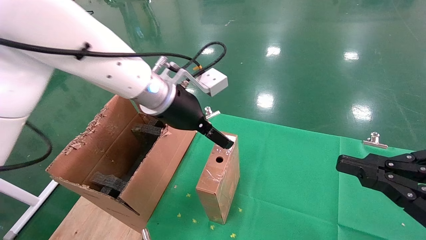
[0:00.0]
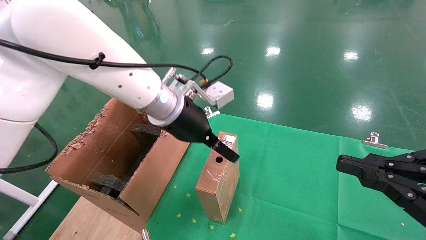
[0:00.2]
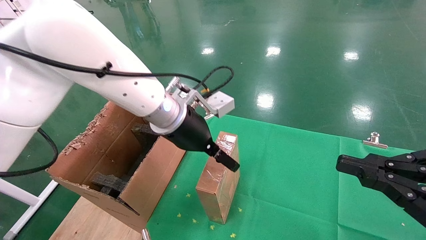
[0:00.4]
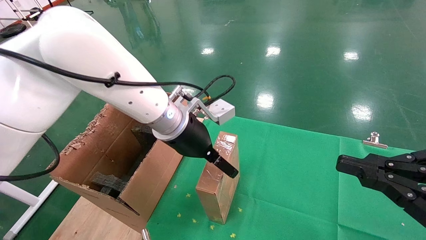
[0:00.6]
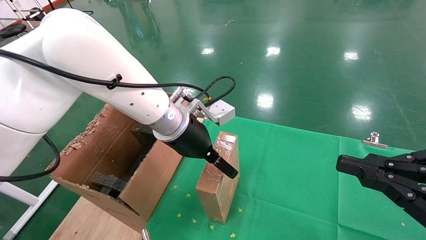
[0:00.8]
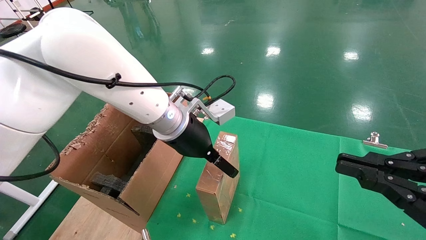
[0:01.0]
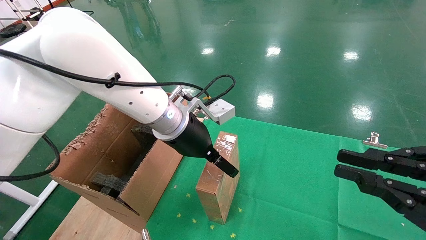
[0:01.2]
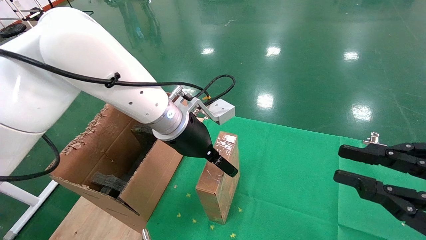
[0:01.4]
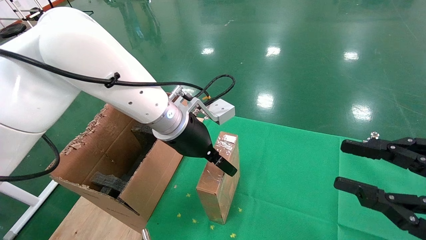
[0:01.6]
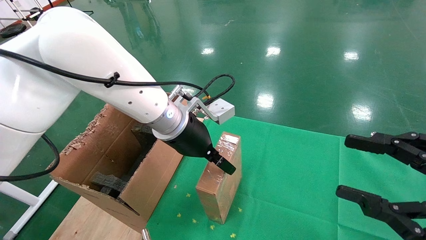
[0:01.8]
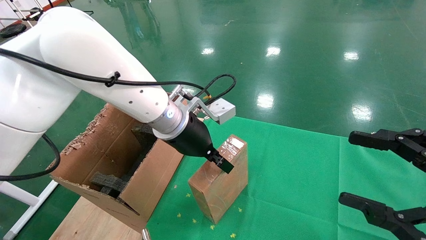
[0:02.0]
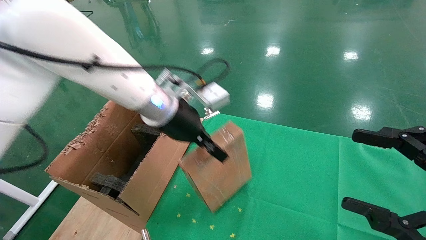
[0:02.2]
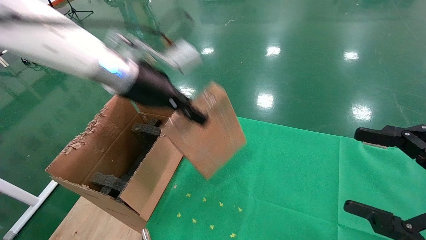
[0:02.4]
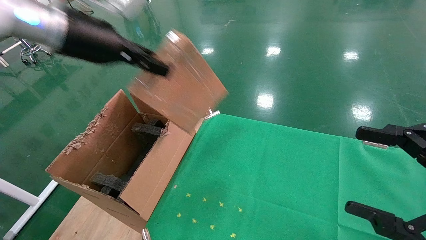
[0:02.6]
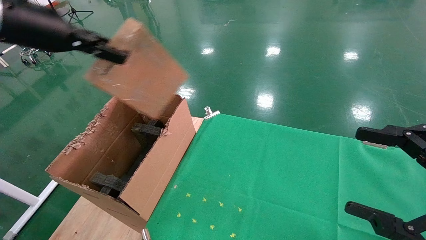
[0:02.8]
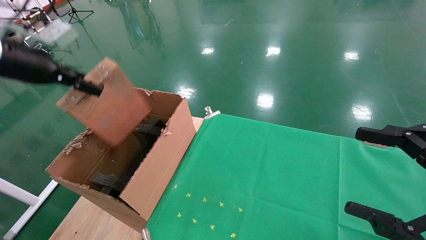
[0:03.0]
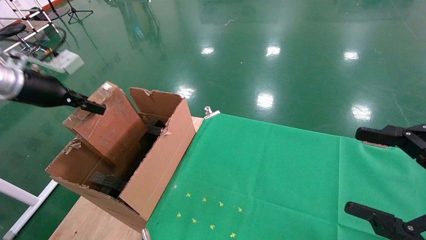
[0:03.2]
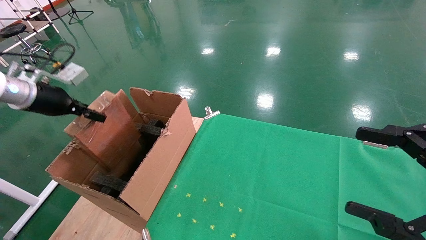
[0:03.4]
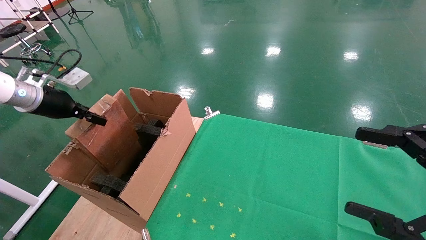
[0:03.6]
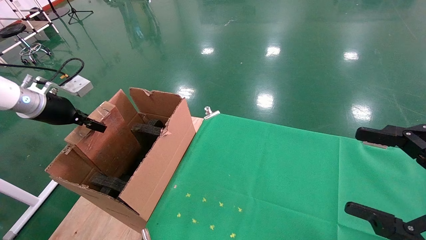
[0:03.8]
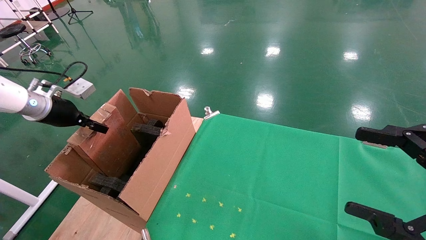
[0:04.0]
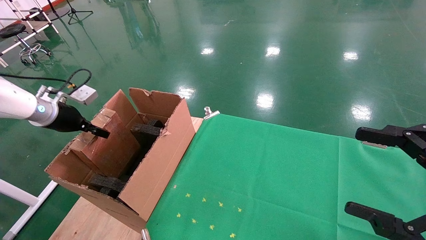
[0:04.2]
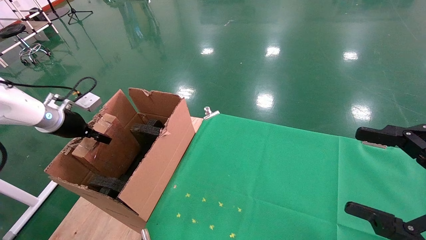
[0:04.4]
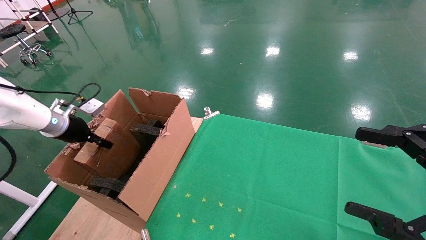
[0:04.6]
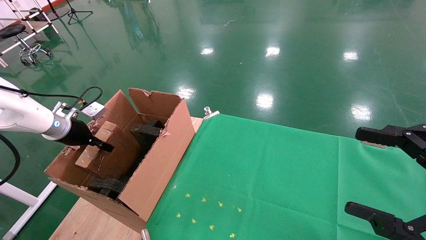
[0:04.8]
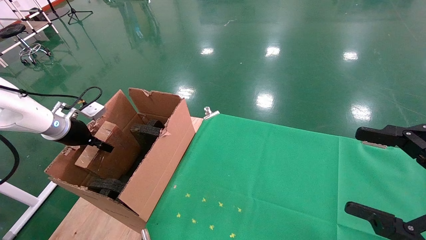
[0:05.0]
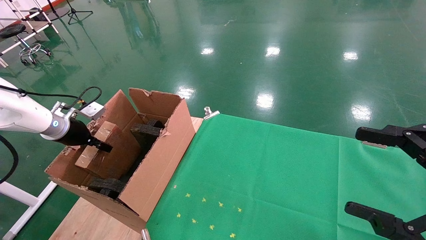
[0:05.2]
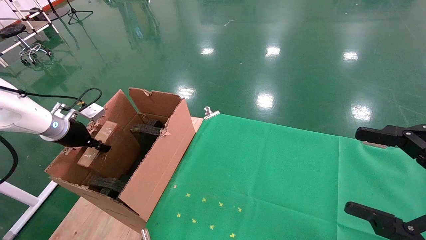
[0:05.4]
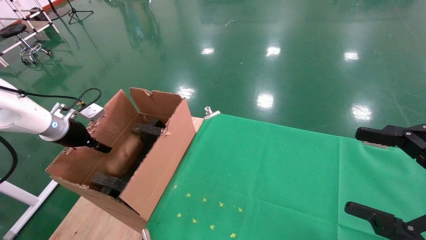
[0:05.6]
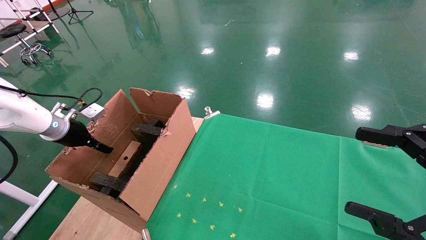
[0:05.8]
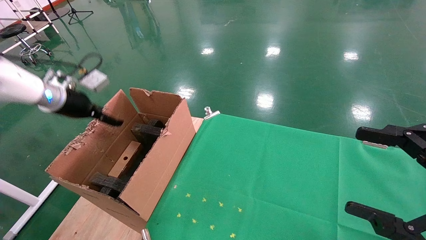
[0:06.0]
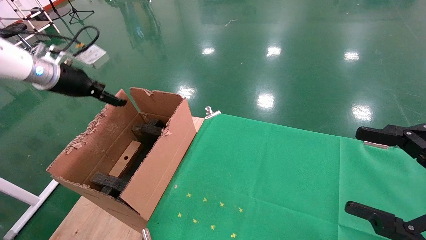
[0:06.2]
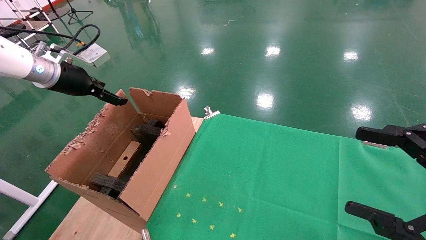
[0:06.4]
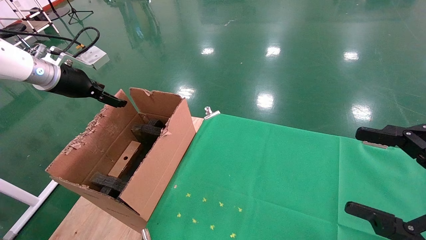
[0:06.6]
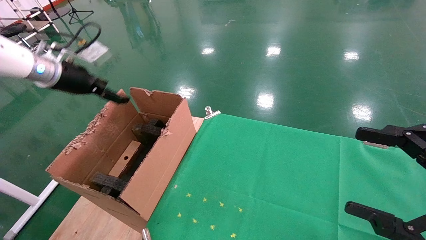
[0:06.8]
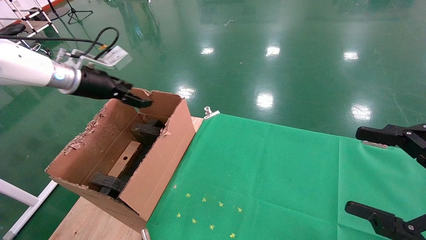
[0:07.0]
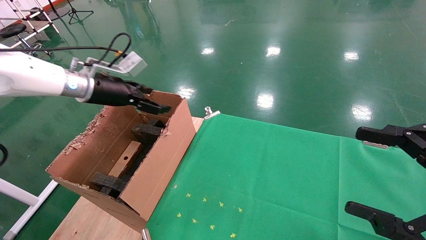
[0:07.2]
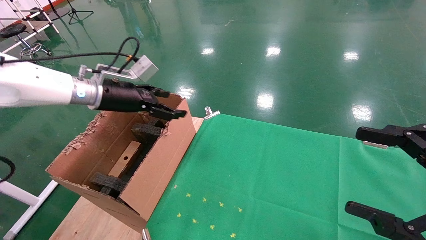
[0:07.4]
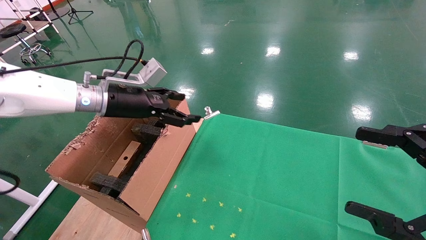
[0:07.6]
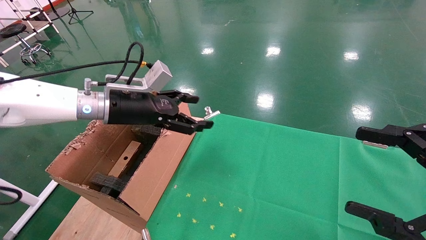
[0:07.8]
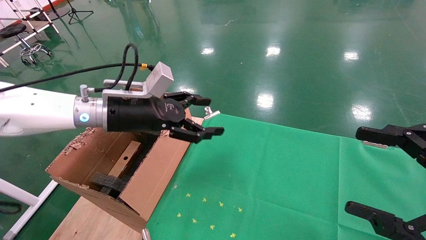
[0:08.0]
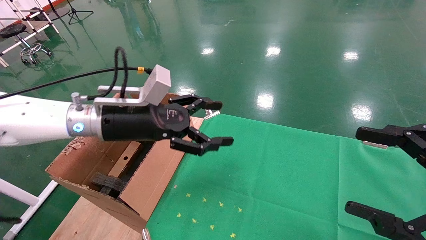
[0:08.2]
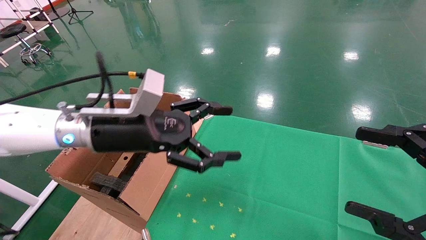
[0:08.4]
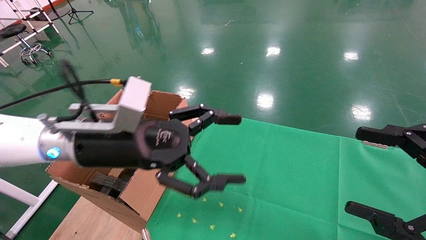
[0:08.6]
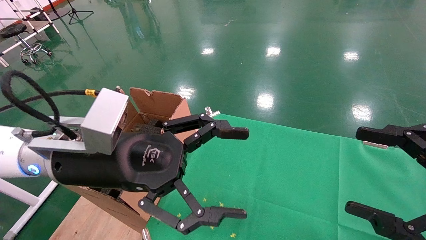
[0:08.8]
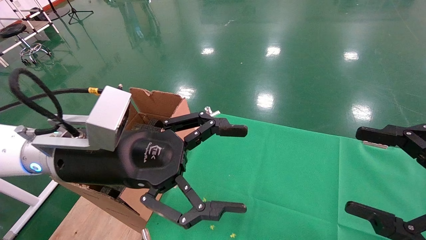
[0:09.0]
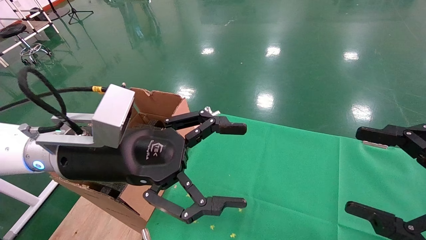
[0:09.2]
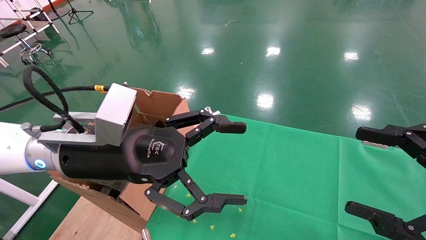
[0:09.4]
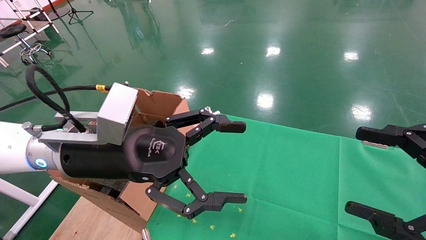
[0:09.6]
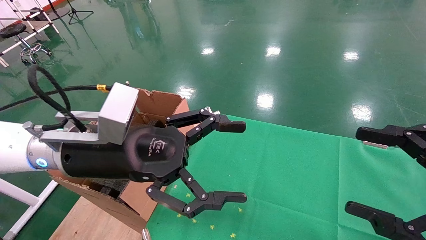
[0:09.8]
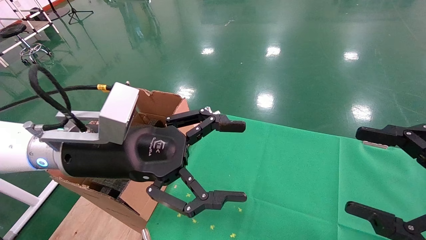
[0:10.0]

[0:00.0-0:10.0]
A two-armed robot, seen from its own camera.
Task of the whole recording: using a robotic arm to pick up a cardboard box and palace it the carton.
Step, 0:00.0 to 0:01.8: Pick up the mouse and the power cord paper box.
Step, 0:02.0 to 0:06.2: Place the mouse and the power cord paper box into the container.
0:01.4 to 0:02.8: The left gripper moves to the left and upward, about 30 cm, and closes its fingers; the right gripper opens up.
0:02.8 to 0:04.2: The left gripper moves downward, to the left and forward, roughly 25 cm.
0:04.2 to 0:05.8: The left gripper opens its fingers.
0:05.8 to 0:07.2: The left gripper goes some 15 cm to the right and upward, and opens.
0:07.2 to 0:08.6: The left gripper goes about 20 cm backward and to the right.
0:08.6 to 0:10.0: The grippers stay close to where they were, moving slightly.

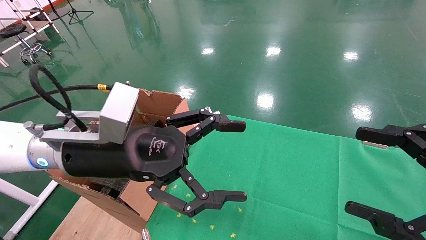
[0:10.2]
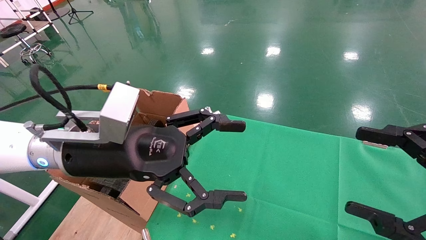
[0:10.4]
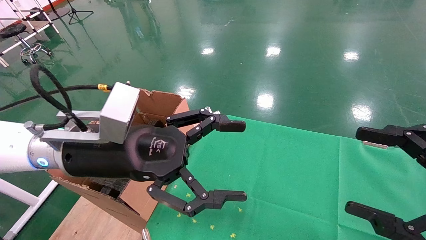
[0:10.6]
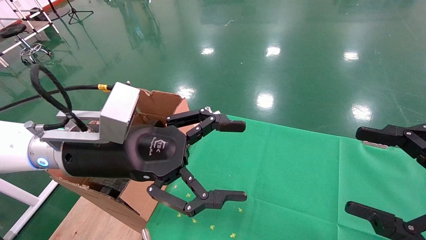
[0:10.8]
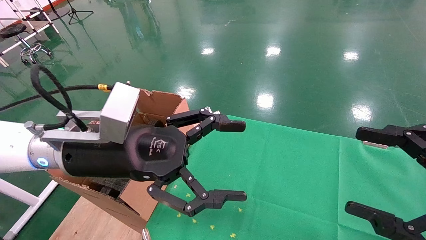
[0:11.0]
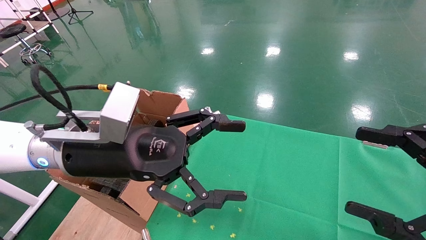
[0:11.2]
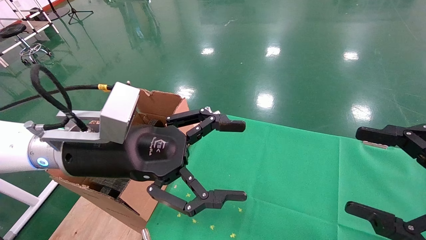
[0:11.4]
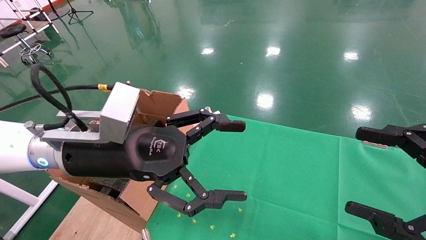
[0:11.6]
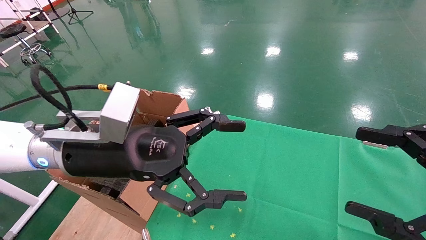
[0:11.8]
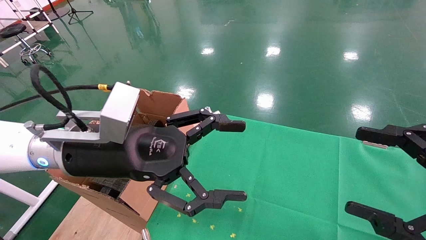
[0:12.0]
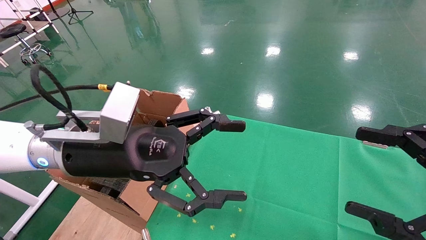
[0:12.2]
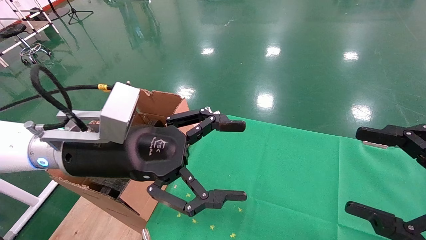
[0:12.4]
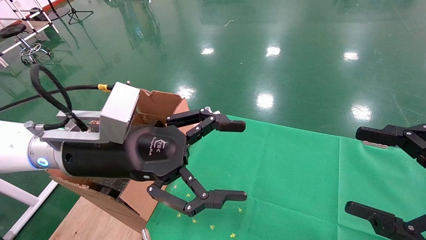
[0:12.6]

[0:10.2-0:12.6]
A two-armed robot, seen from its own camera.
Task of the whole recording: using a robotic arm to pick up a cardboard box and palace it the carton.
0:10.2 to 0:12.6: Both grippers stay put.
